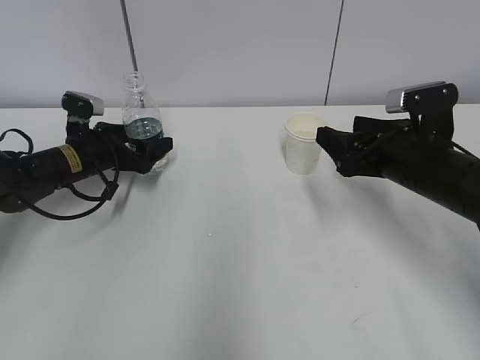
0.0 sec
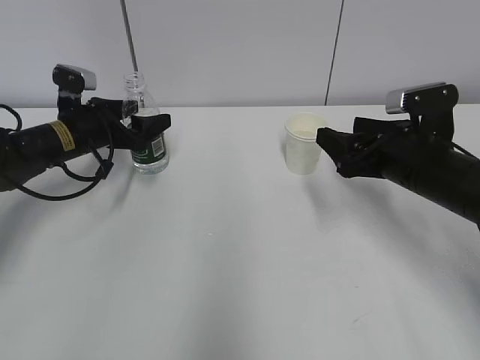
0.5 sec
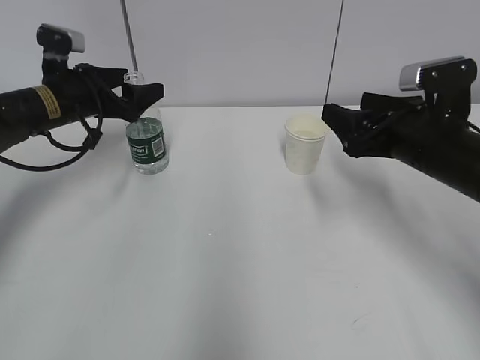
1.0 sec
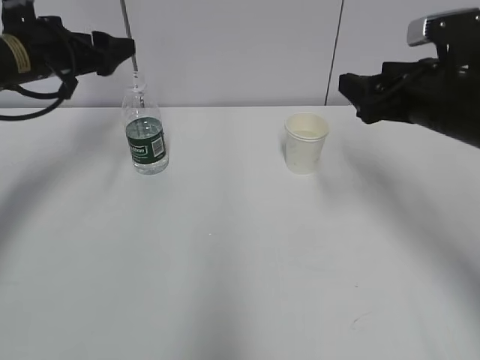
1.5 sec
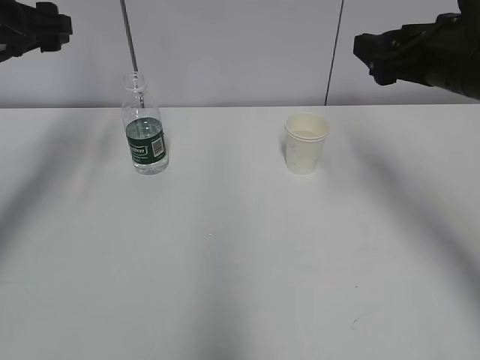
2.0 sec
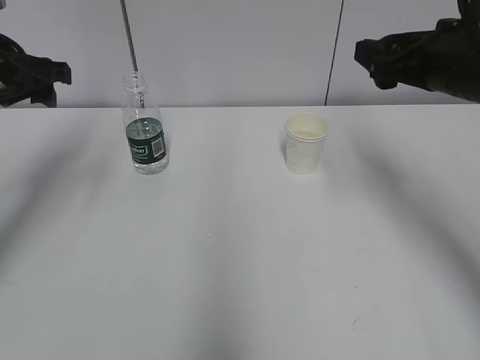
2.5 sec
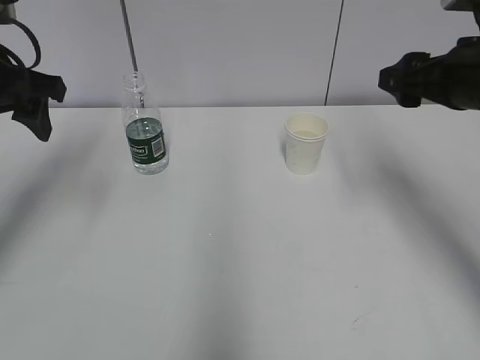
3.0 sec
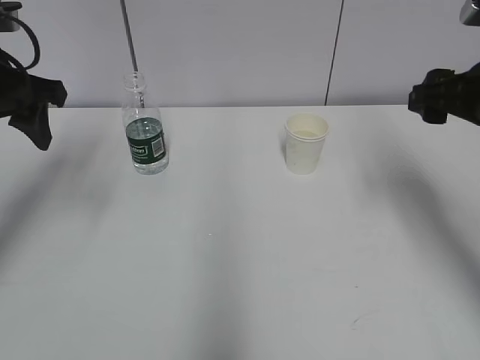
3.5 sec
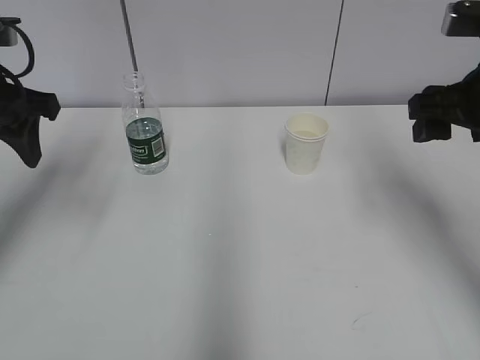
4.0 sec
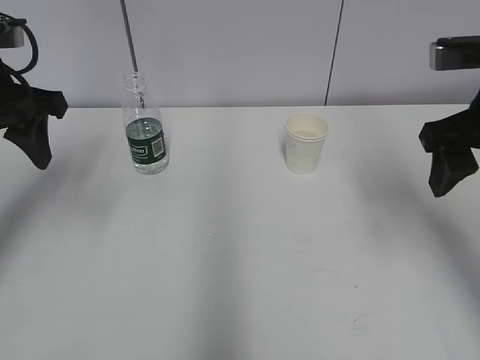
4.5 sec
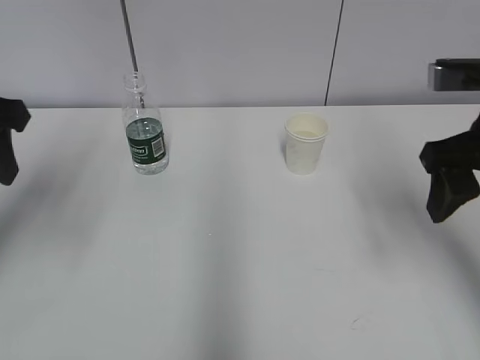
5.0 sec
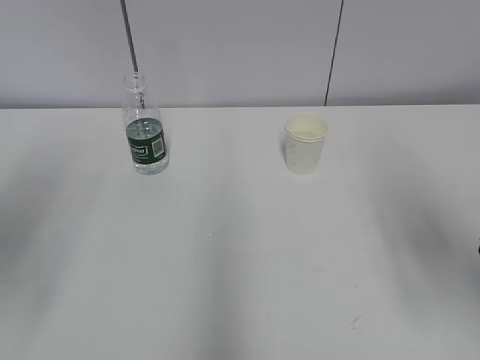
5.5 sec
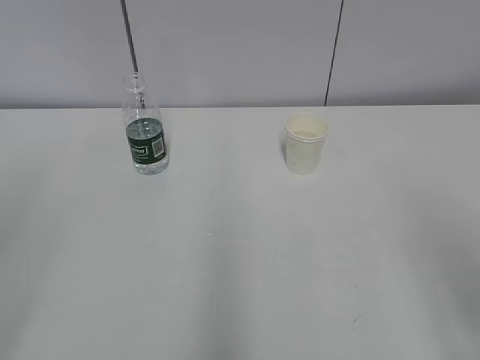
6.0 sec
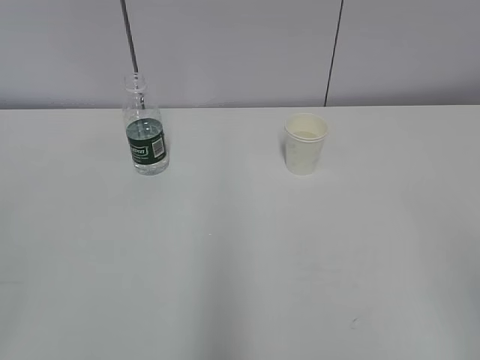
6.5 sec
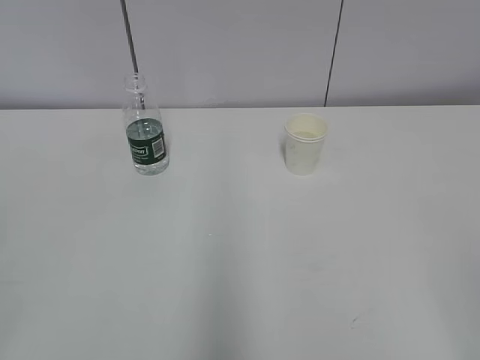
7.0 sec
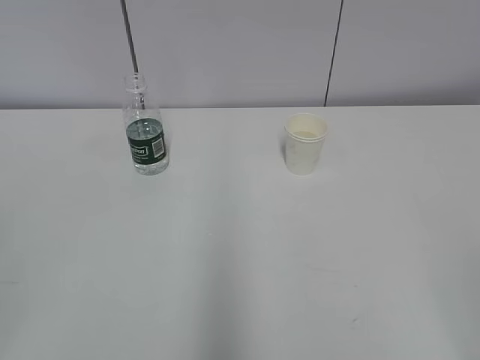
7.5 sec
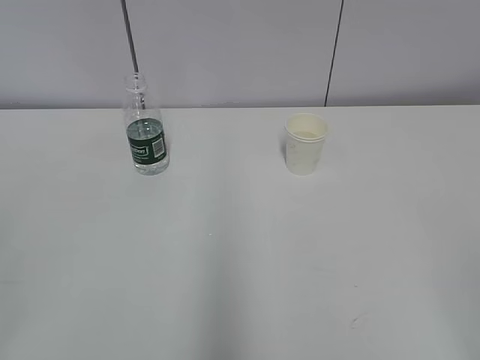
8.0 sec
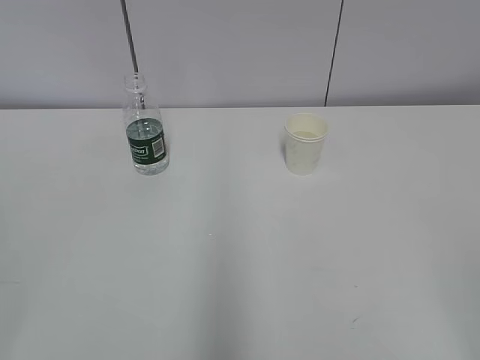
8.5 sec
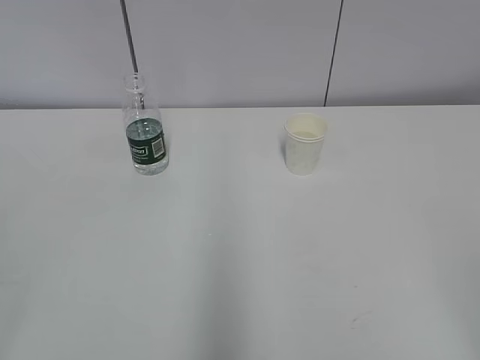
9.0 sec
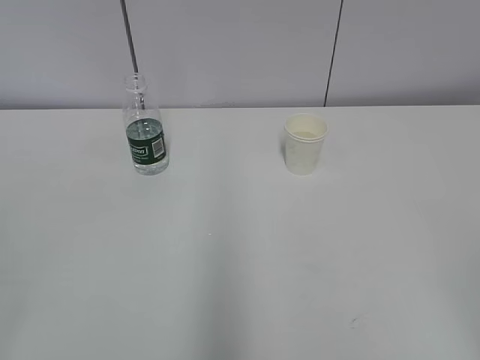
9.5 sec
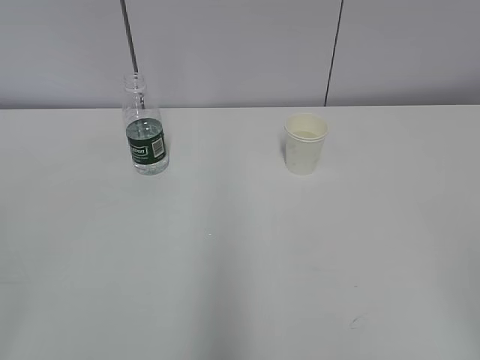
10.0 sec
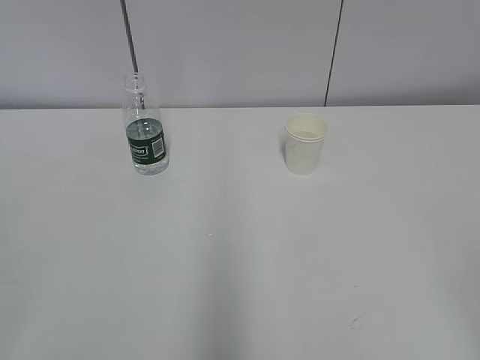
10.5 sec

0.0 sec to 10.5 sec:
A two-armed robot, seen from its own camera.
0.0 sec to 2.0 sec: The left gripper goes some 20 cm upward. The right gripper goes roughly 10 cm upward.
2.0 sec to 4.0 sec: The left gripper shifts roughly 5 cm backward.
4.0 sec to 6.5 sec: Both grippers move backward, about 30 cm.

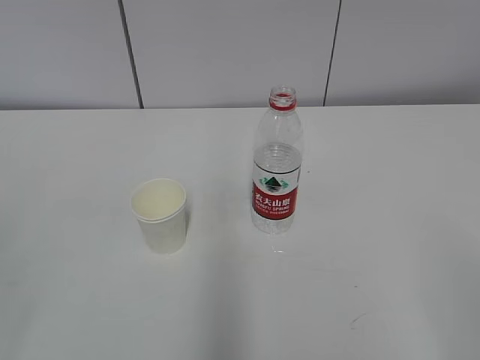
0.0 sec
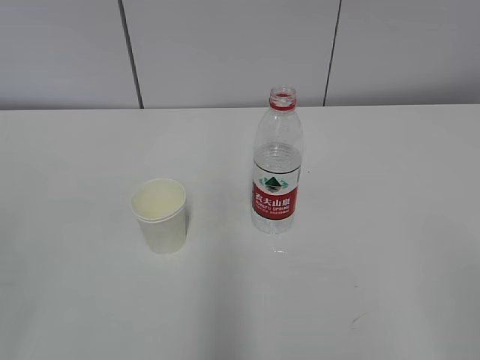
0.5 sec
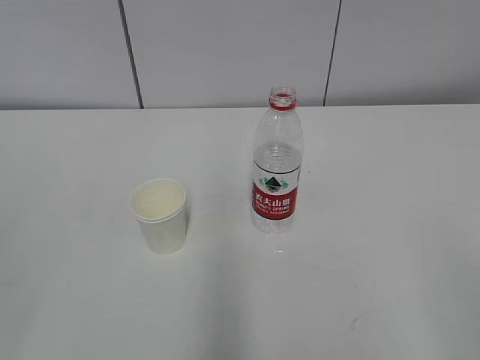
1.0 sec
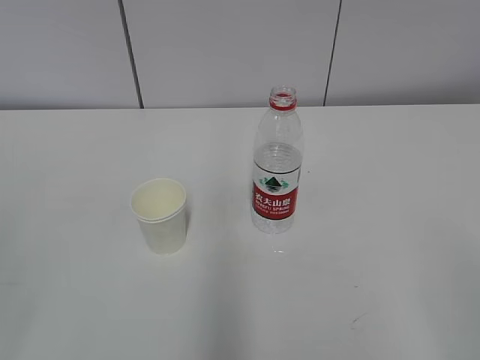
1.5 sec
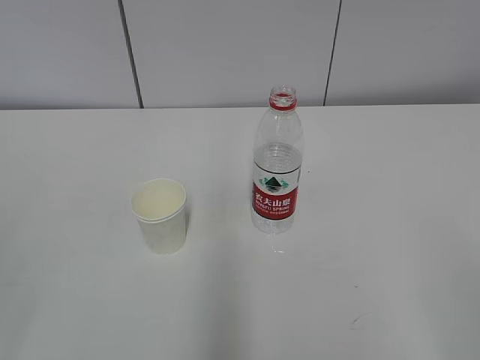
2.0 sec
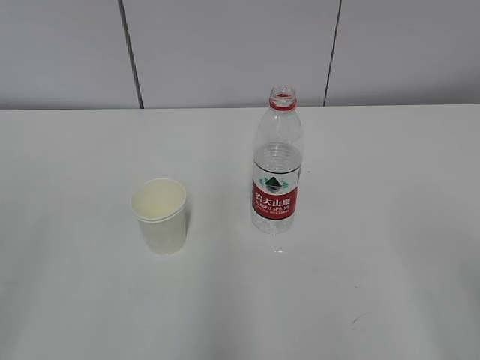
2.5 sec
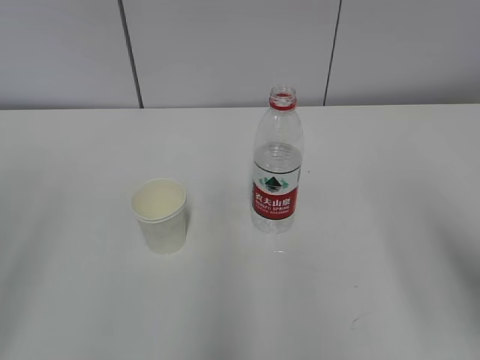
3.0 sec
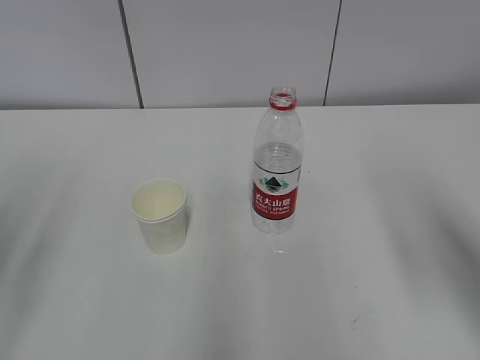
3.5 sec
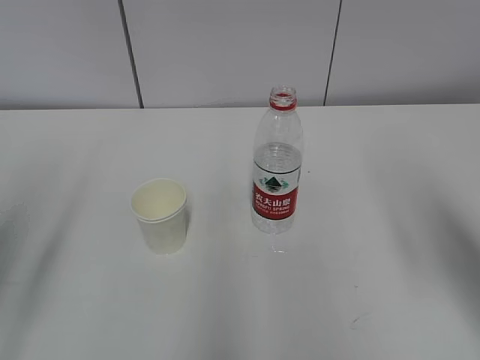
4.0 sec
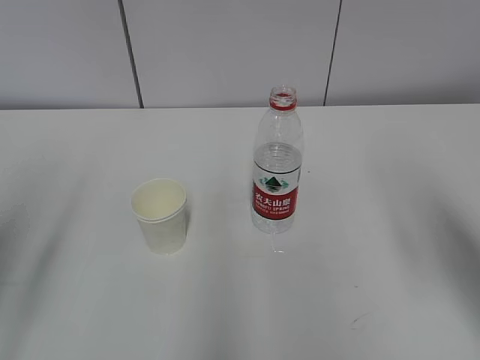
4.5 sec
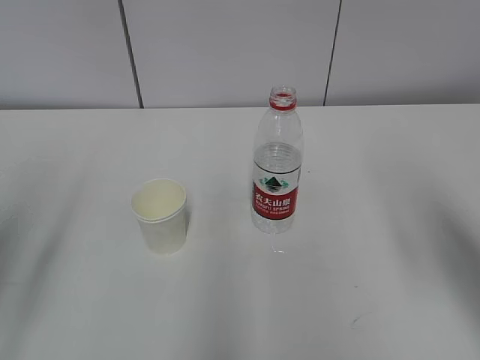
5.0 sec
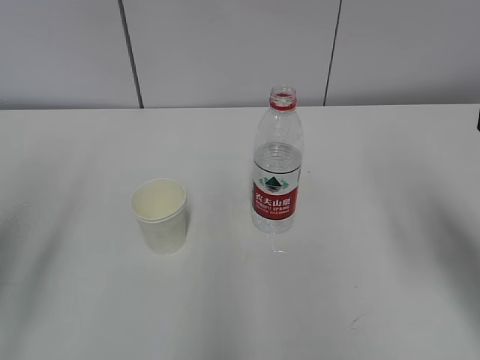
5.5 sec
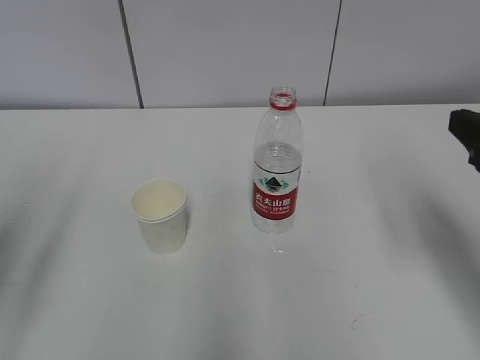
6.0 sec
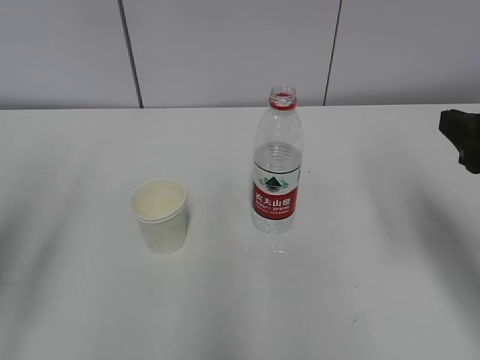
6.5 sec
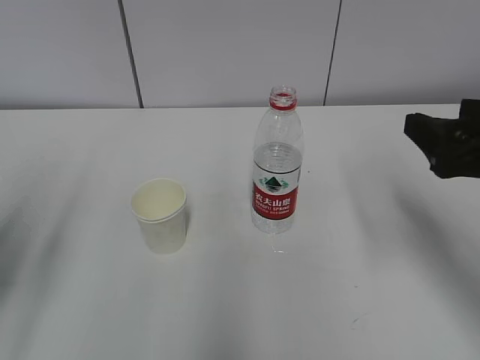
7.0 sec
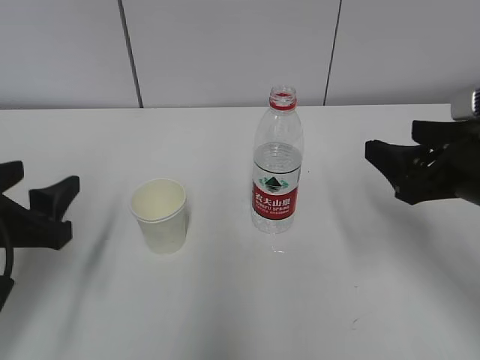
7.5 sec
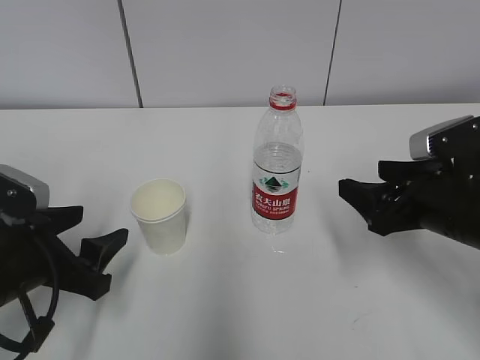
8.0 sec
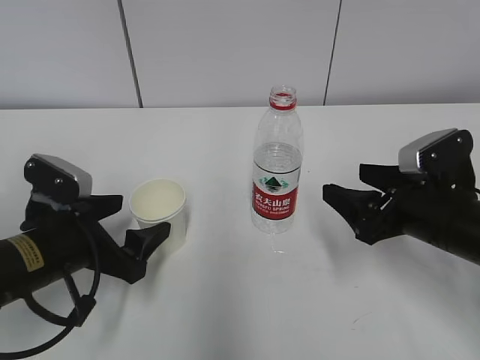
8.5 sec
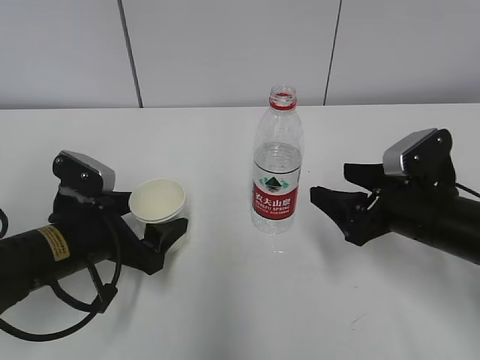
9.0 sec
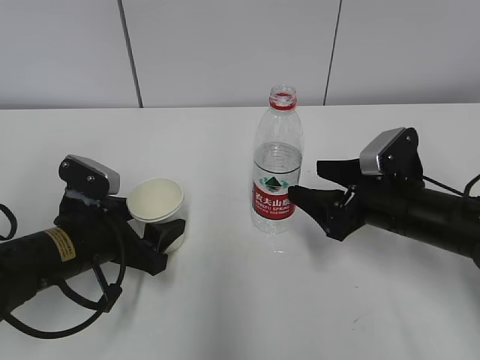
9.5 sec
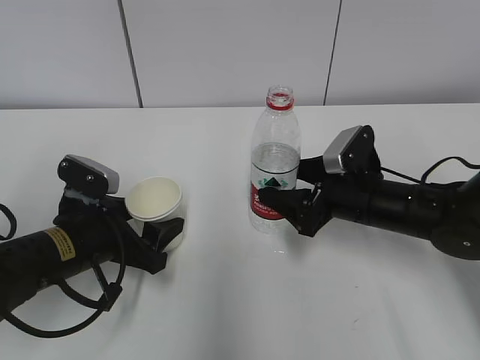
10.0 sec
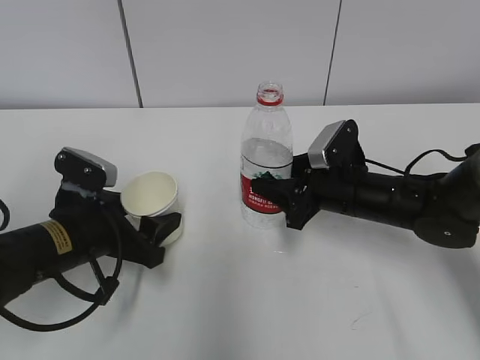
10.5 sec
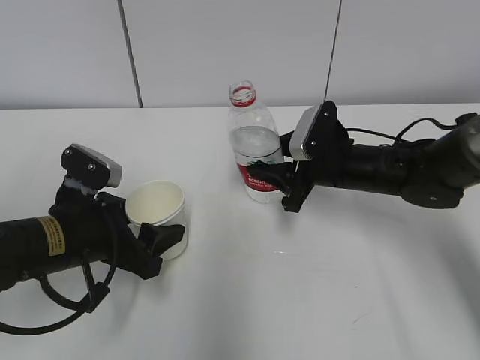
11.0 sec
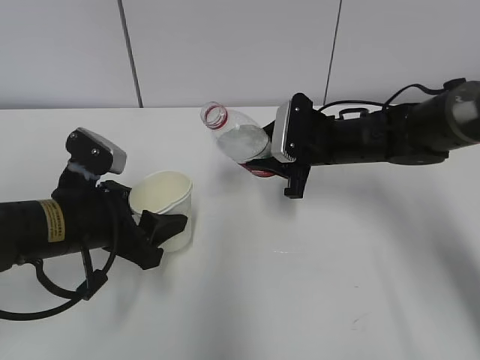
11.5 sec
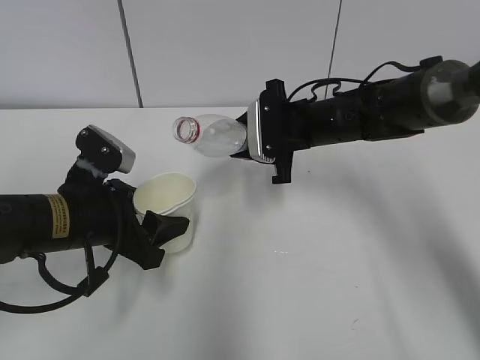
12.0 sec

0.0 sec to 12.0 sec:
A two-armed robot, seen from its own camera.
Step, 0.0 sec to 7.5 sec: Grab the paper cup with the left hand.
Step, 8.0 sec to 8.5 sec: Grab the water bottle with the right hand.
Step, 9.0 sec to 11.0 sec: Lift the paper cup with the left hand.
2.0 sec to 4.0 sec: Both grippers move forward, approximately 15 cm. The left gripper opens.
4.0 sec to 6.0 sec: The right gripper moves roughly 5 cm.
6.0 sec to 8.0 sec: The left gripper is displaced downward, forward and to the right by some 20 cm, while the right gripper goes approximately 10 cm downward and forward.
8.0 sec to 10.0 sec: The right gripper travels forward, downward and to the left by some 10 cm; the left gripper travels forward by about 5 cm.
10.0 sec to 12.0 sec: The right gripper heads forward, upward and to the left, covering approximately 10 cm, and closes its fingers.

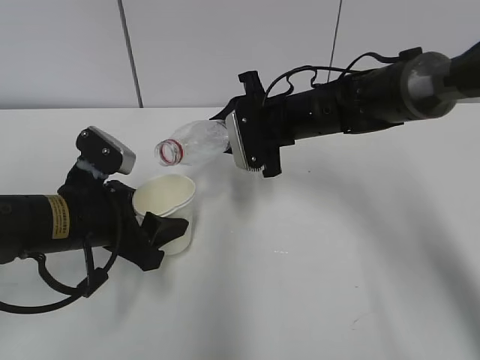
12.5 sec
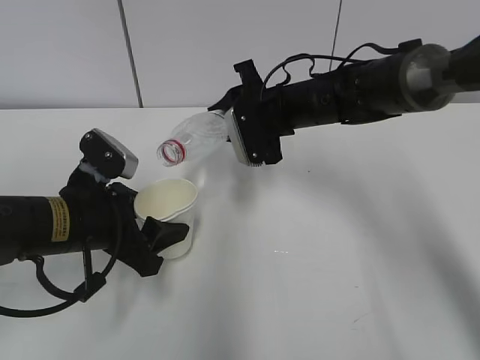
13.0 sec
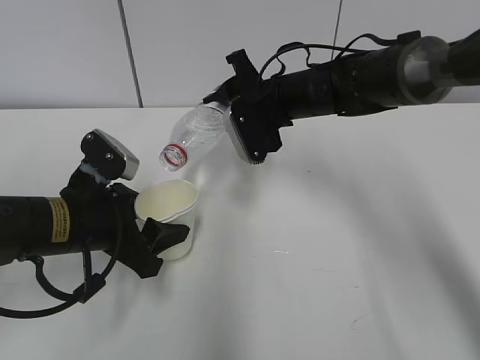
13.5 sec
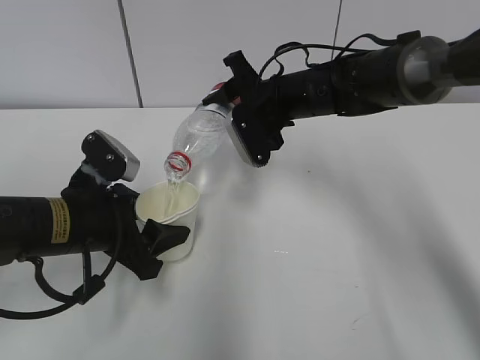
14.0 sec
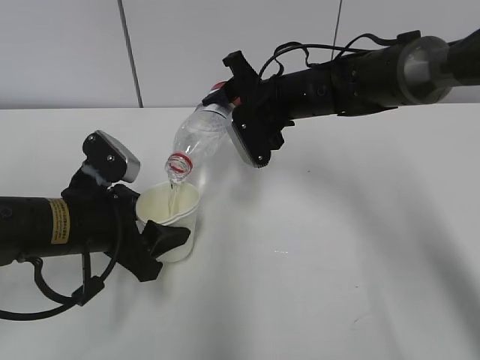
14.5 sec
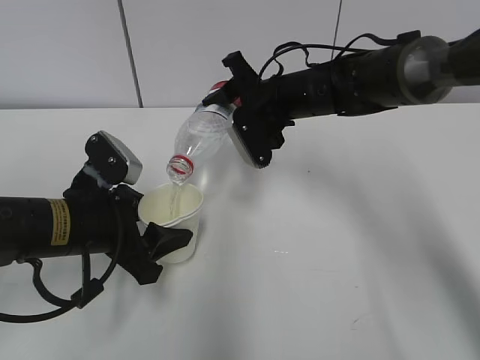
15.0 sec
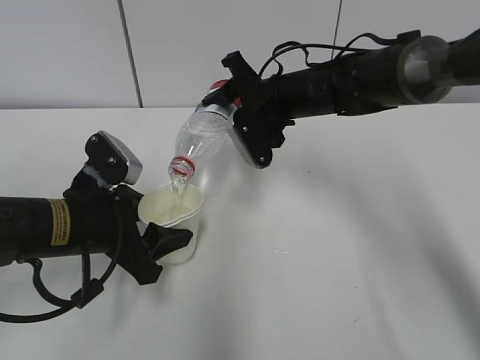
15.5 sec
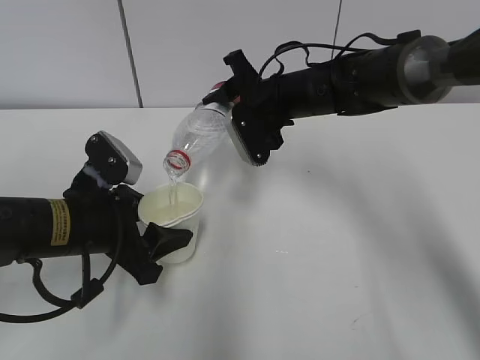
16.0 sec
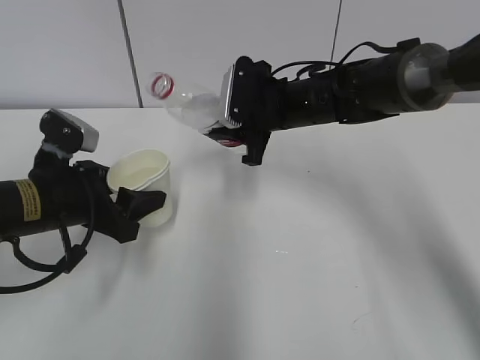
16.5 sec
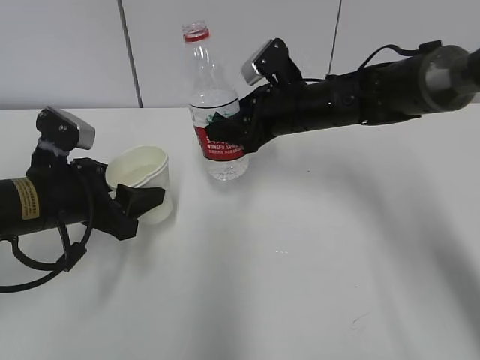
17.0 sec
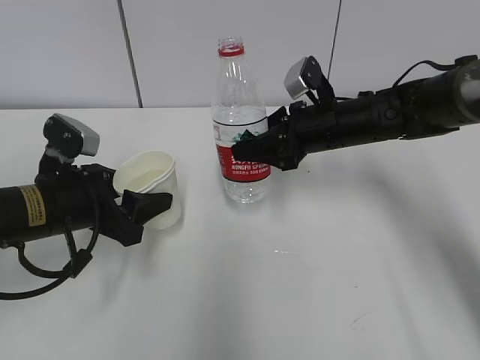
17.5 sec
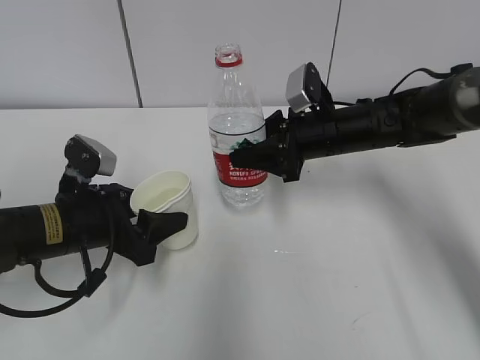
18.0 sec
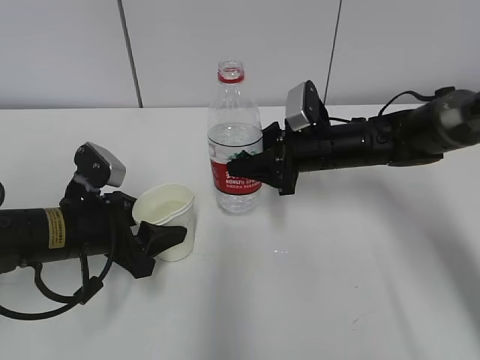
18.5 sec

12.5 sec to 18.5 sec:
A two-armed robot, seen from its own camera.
Step, 14.5 sec to 15.5 sec: Place the paper cup with the left hand.
16.5 sec to 18.5 sec: The right gripper is displaced to the right and downward by approximately 5 cm.
